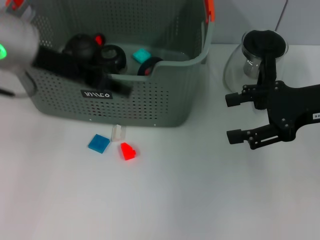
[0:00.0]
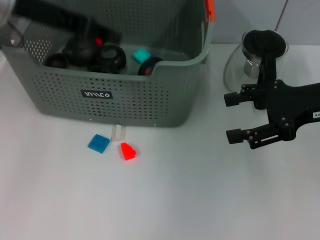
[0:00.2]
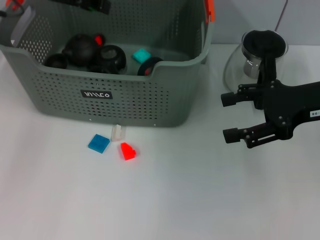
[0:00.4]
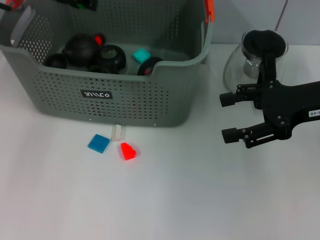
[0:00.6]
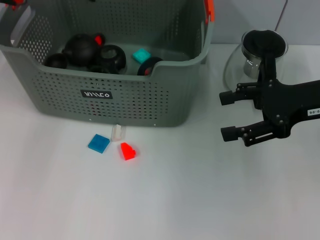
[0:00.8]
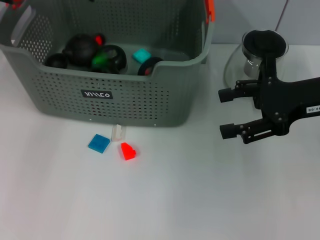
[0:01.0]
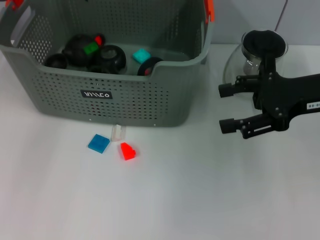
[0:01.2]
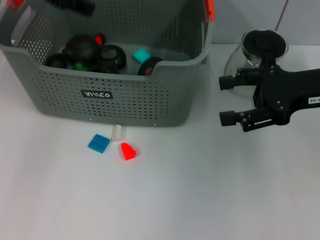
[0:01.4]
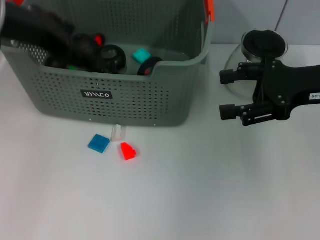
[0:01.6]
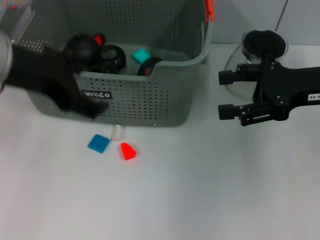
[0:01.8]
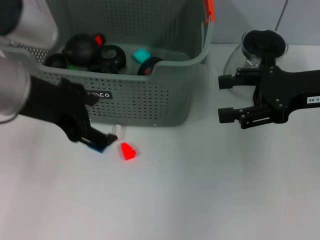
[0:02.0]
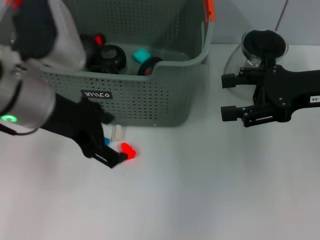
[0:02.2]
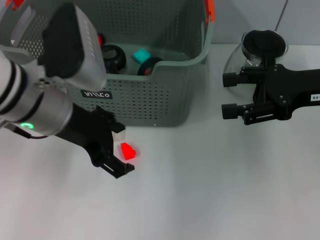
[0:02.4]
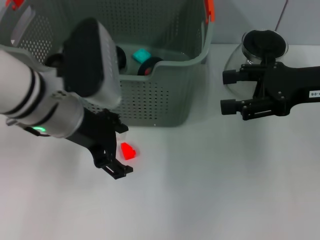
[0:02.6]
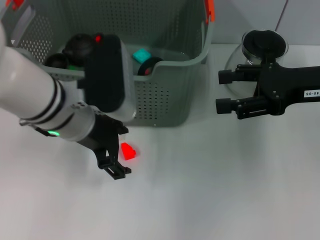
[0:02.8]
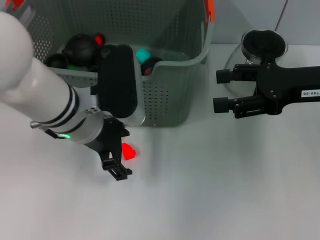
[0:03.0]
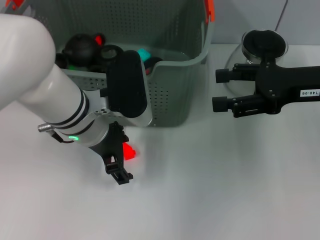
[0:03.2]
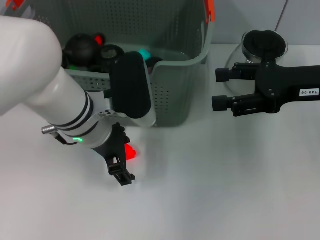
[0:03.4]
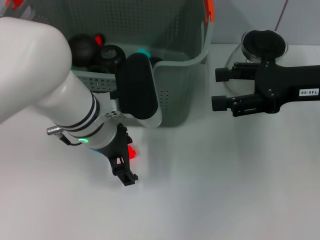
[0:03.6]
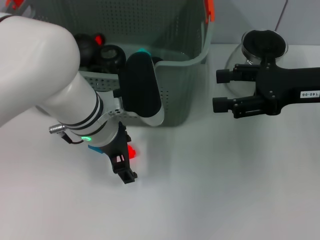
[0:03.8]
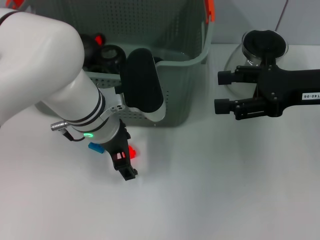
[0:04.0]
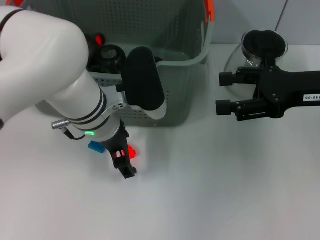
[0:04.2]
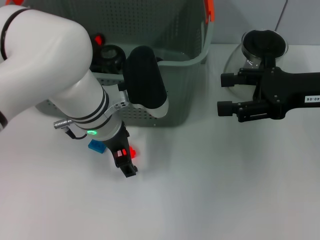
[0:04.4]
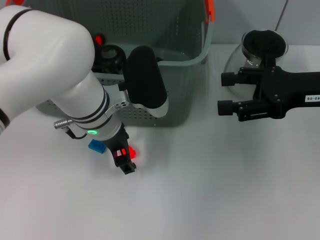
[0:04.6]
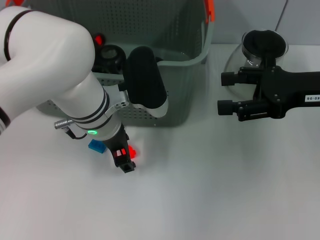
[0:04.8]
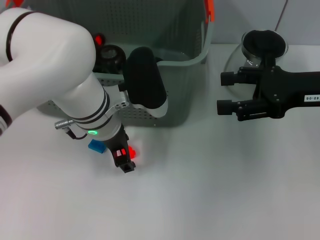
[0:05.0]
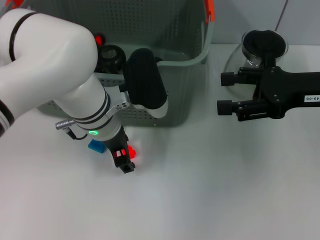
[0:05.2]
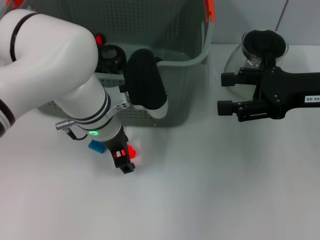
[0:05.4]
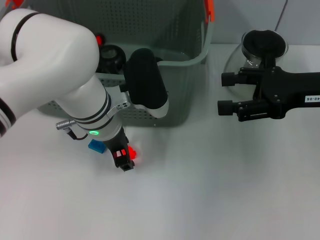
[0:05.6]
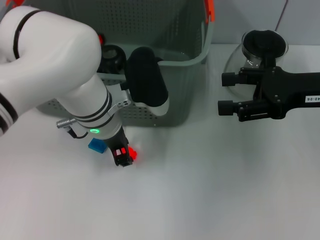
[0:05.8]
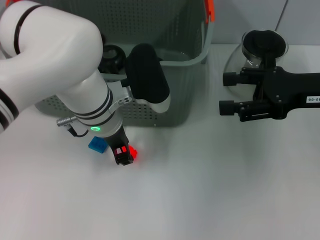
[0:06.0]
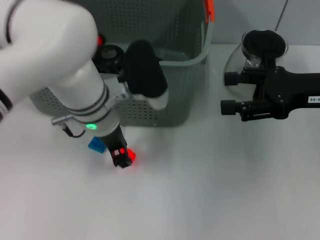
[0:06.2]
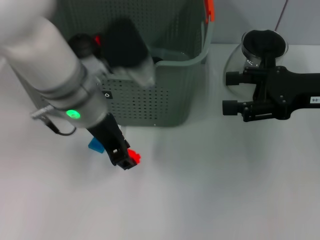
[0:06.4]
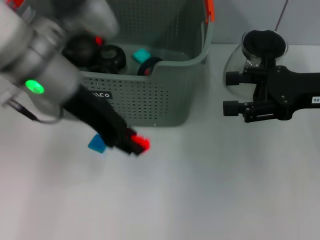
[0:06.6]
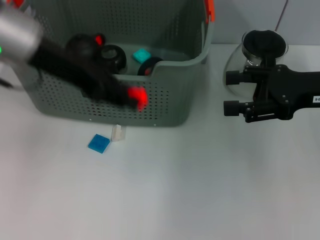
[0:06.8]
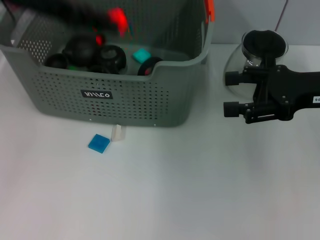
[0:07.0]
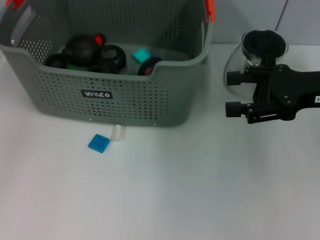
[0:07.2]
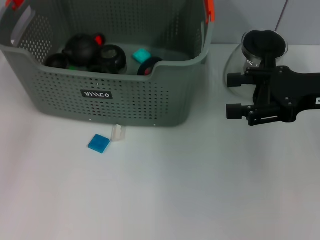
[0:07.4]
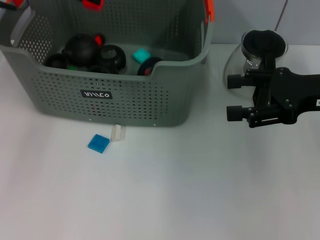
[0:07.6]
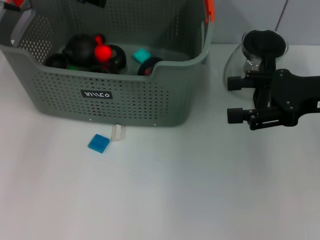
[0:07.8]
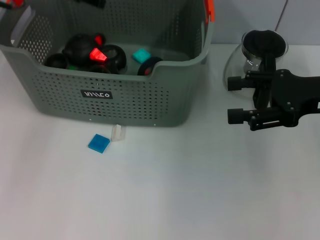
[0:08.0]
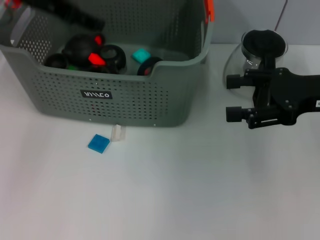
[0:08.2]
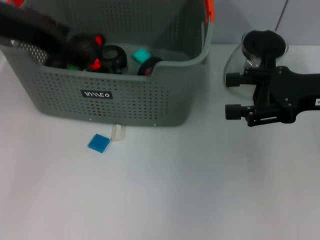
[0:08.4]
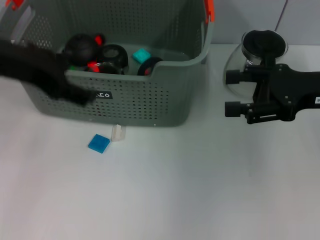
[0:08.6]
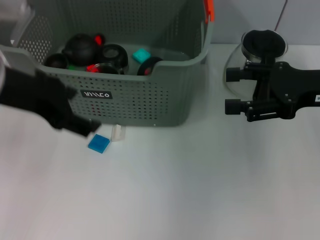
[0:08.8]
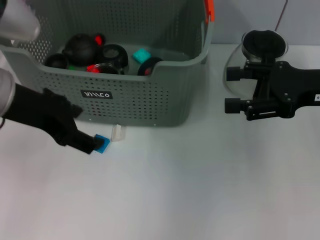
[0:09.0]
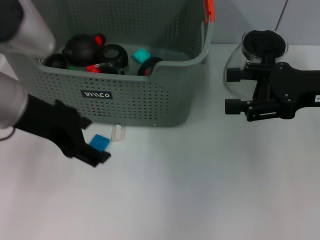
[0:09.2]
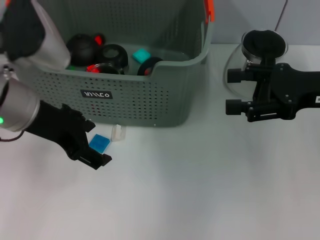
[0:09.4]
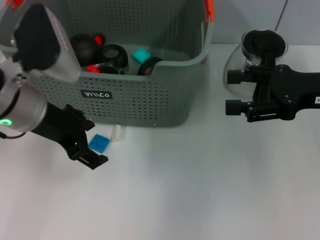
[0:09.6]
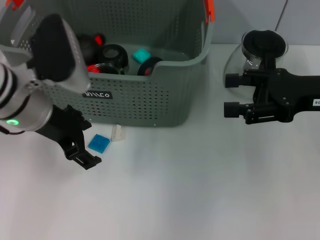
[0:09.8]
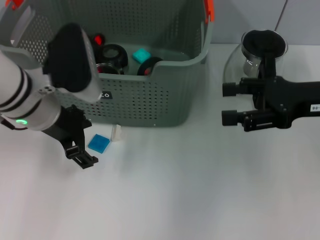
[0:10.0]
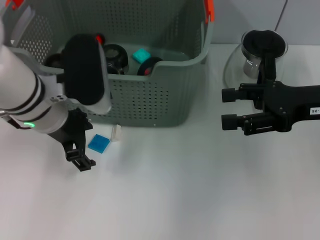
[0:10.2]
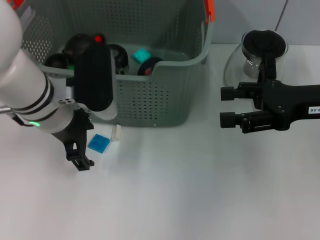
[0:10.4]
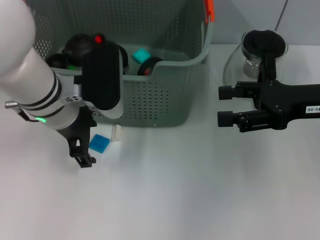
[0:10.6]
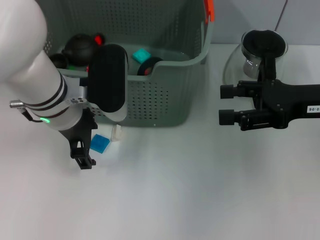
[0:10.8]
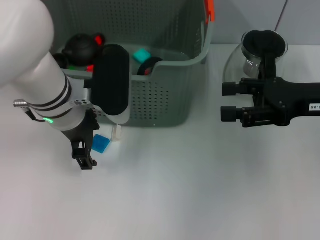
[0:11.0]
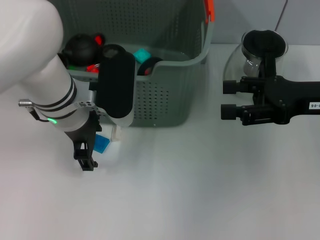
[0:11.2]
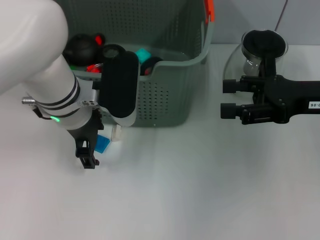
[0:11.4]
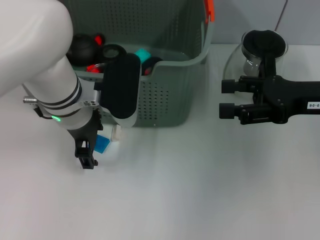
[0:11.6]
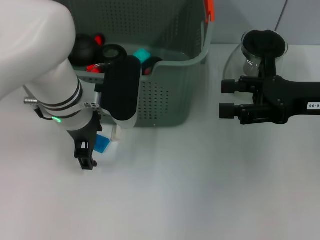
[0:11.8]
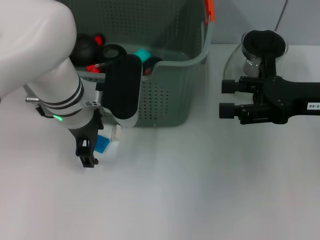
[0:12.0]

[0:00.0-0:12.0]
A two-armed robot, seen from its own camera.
Task of the whole recording: pick up the teacup on the table and place it into the storage bin, pick up the block on the table and place it into the storage bin.
Step, 0:00.0 to 0:01.0: Place the green block in the storage box with left gripper.
Step, 0:01.2 to 0:05.6: Grasp the orange block with left gripper.
Step, 0:06.0 to 0:07.8: Place the orange block in the storage box with left gripper.
0:00.0 to 0:01.6: The left gripper reaches approximately 10 cm forward, then returns, and opens its fingers.
0:01.6 to 0:03.0: The left gripper shifts some 15 cm downward and to the right.
0:04.4 to 0:06.0: The left gripper closes up.
0:06.0 to 0:07.6: The left gripper goes approximately 20 cm to the left, upward and forward.
0:07.6 to 0:09.0: The left gripper heads backward, covering approximately 15 cm, and opens up.
0:09.0 to 0:10.4: The left gripper travels downward and to the right by some 10 cm.
0:10.4 to 0:12.0: There are only small adjustments of the grippers.

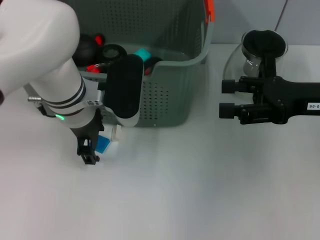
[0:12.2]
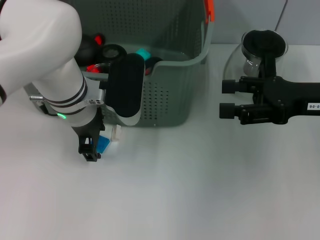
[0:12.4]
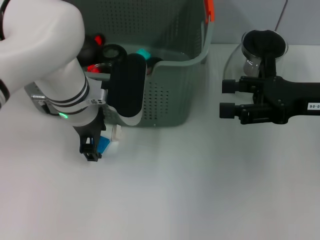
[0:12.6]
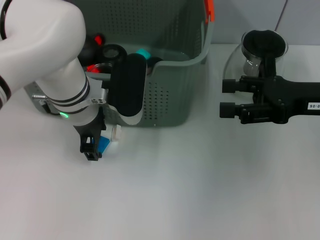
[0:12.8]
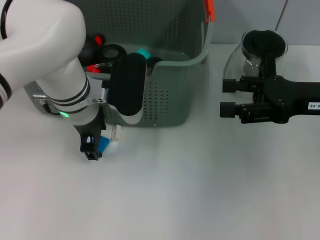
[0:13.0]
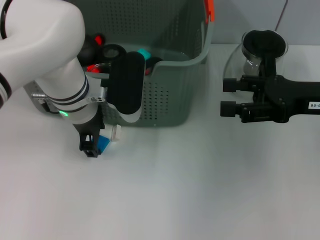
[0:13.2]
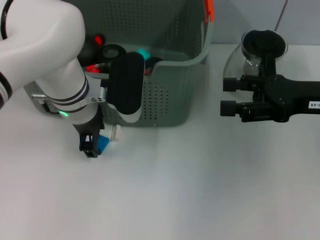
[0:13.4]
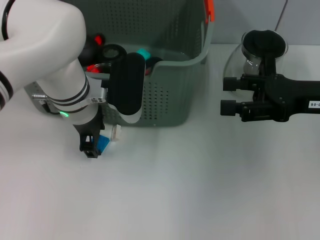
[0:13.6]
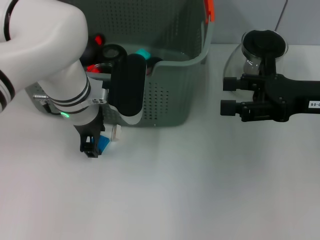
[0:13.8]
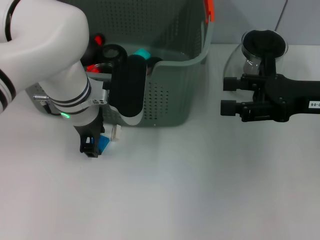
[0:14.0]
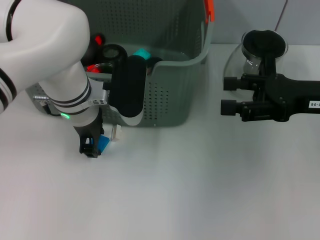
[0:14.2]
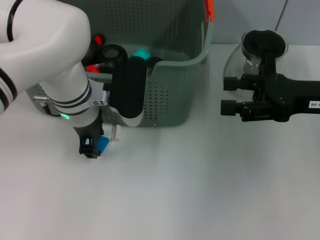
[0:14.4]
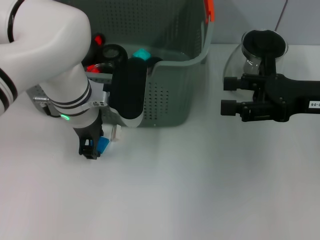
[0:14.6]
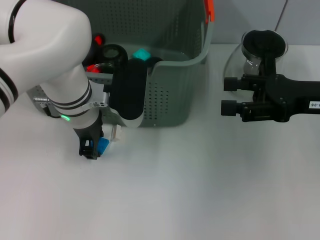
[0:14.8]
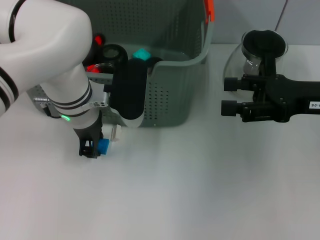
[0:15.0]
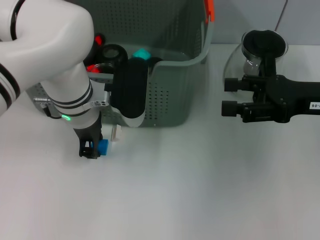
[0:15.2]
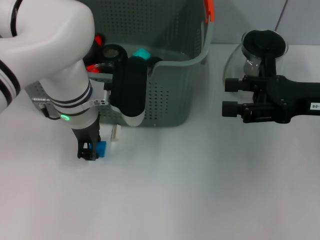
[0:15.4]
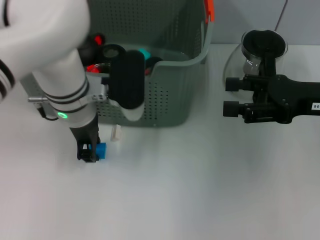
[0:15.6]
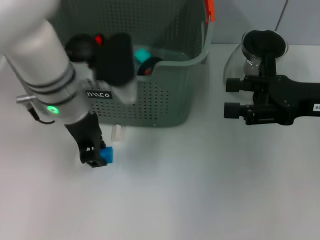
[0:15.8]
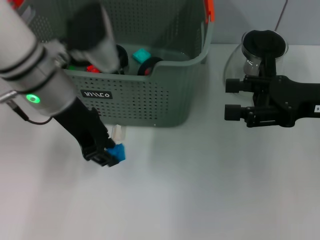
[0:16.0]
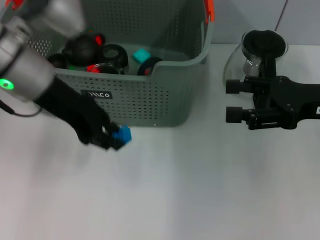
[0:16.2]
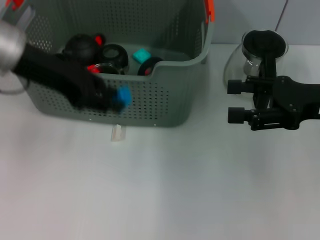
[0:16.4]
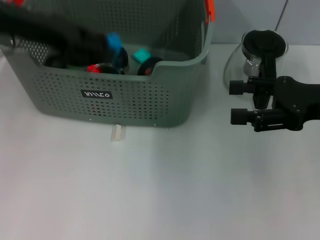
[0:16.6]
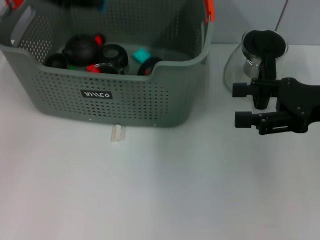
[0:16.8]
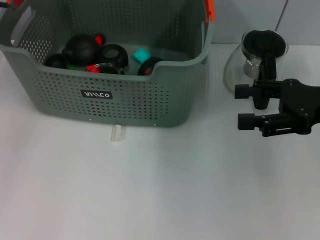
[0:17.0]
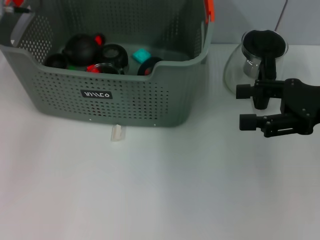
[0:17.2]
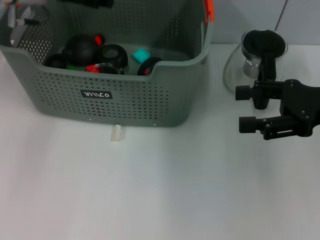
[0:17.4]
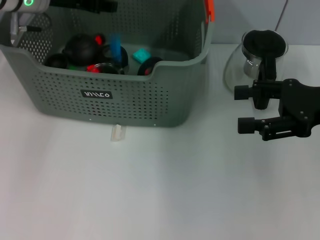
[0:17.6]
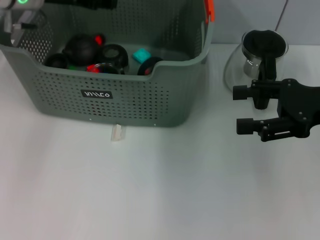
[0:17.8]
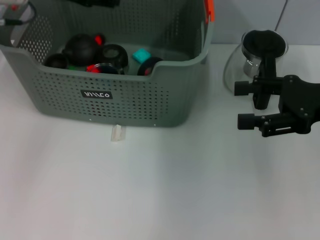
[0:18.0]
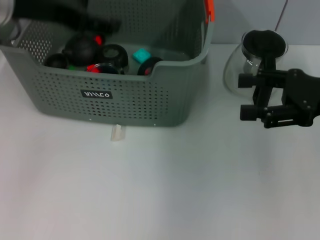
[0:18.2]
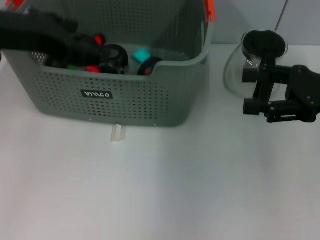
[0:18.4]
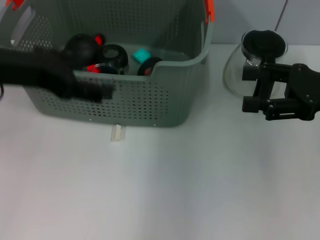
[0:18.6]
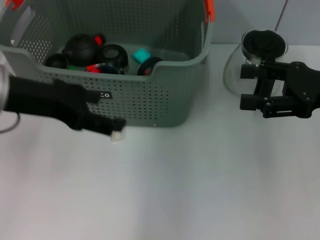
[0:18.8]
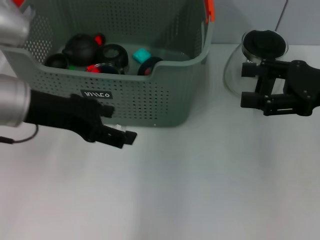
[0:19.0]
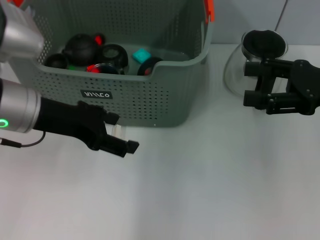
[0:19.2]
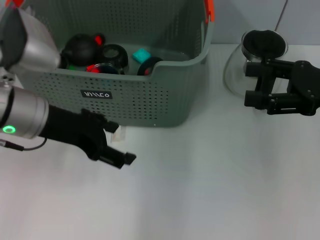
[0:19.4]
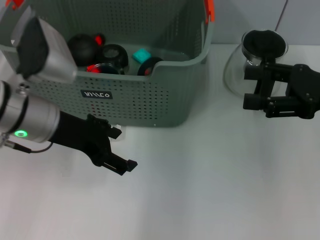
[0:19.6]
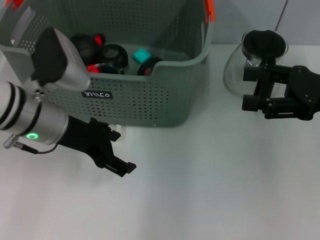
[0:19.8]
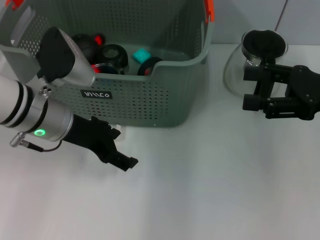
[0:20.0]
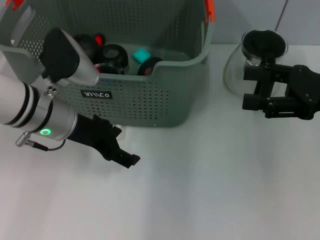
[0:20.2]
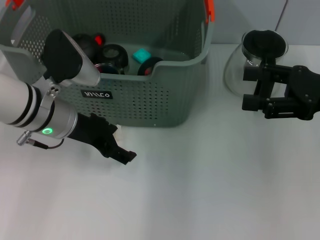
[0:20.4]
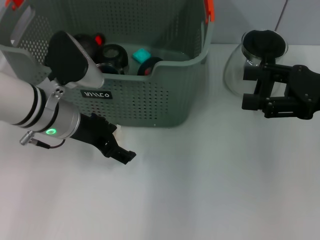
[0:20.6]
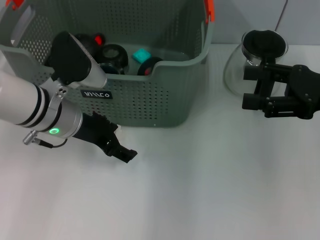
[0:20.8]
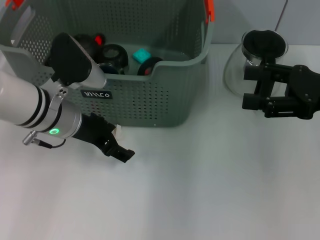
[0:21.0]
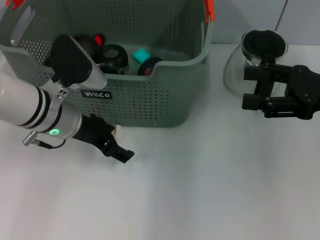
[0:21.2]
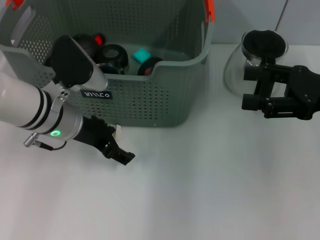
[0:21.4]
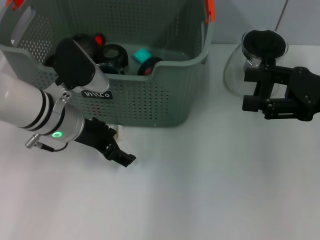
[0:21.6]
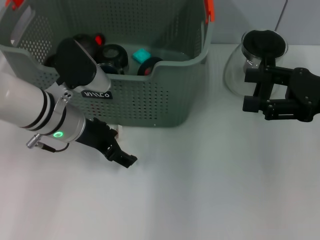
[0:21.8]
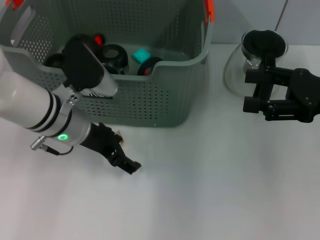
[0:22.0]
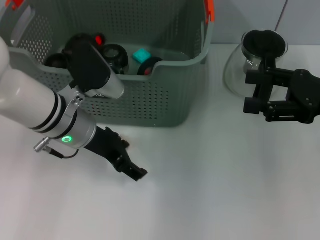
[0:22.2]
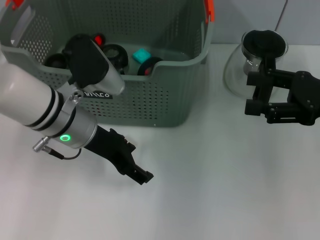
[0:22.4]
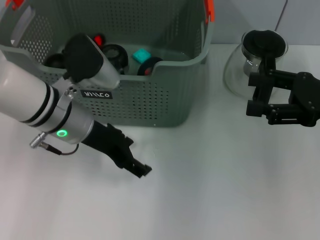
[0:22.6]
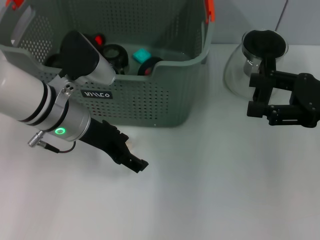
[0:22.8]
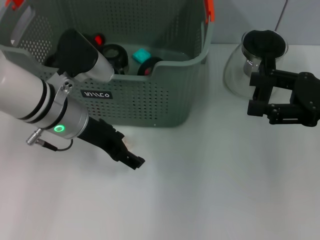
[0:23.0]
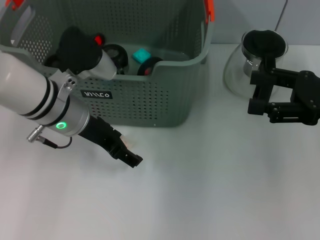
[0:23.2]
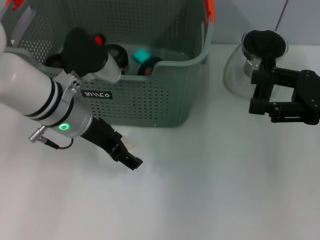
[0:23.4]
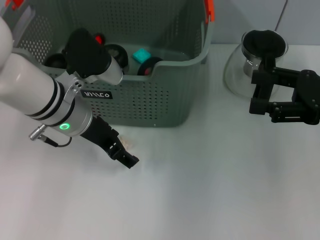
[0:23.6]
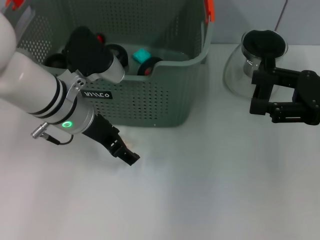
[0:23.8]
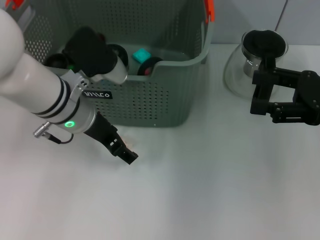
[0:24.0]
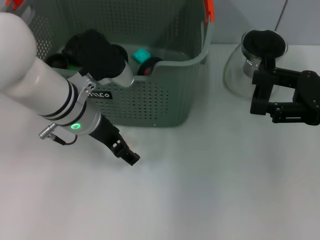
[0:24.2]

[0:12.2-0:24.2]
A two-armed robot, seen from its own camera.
Task of the whole recording: pick up the teacup on the table and place it into the storage bin, pick up the block on the table and place it into the storage bin.
Step, 0:12.2 to 0:15.2: Grasp the dark blue block with left gripper.
Step, 0:15.4 to 0:17.6: Place the dark blue block in the storage box with left gripper.
0:12.2 to 0:15.2: The two grippers keep their place.
0:15.2 to 0:16.6: The left gripper moves upward and to the left, roughly 20 cm.
0:16.6 to 0:18.2: The left gripper moves roughly 10 cm forward and comes back, and opens its fingers.
0:18.2 to 0:19.8: The left gripper is displaced downward by approximately 15 cm.
0:19.8 to 0:24.2: The grippers stay close to where they were, moving slightly.
